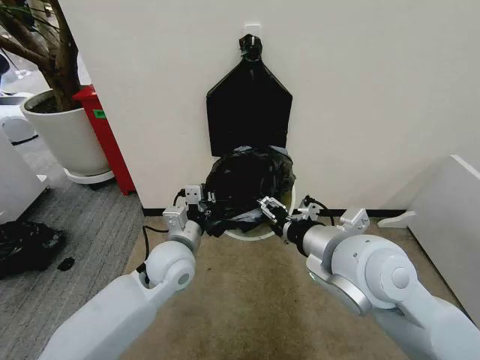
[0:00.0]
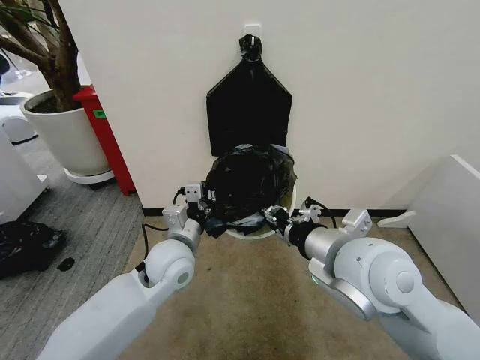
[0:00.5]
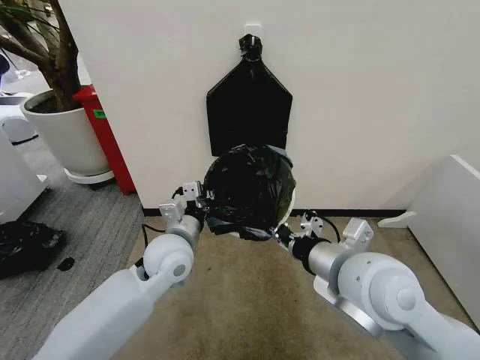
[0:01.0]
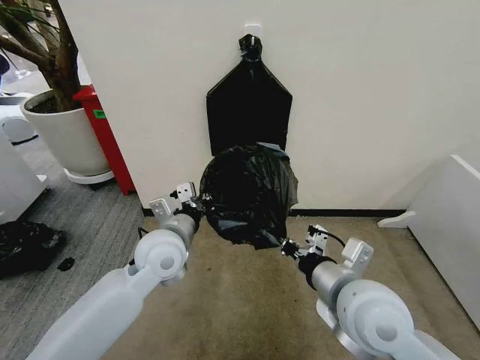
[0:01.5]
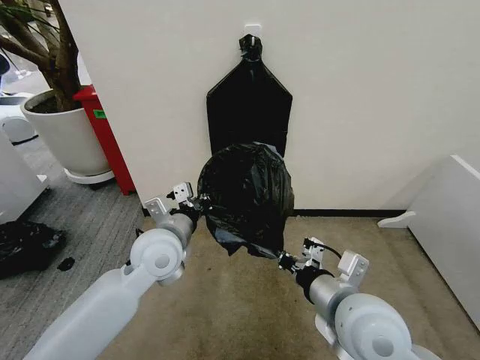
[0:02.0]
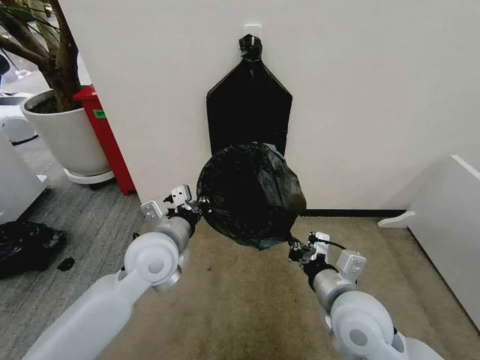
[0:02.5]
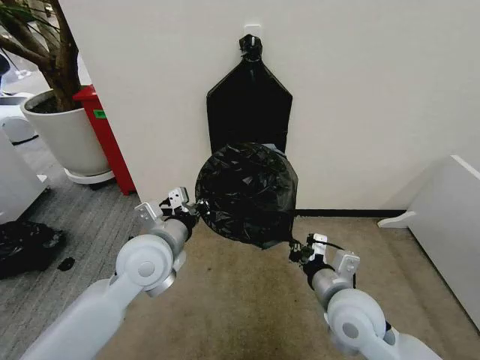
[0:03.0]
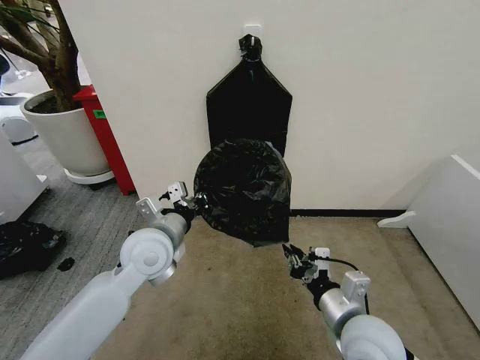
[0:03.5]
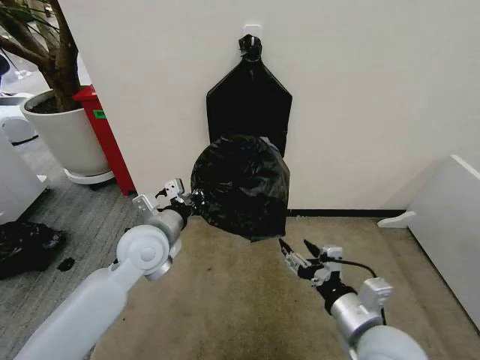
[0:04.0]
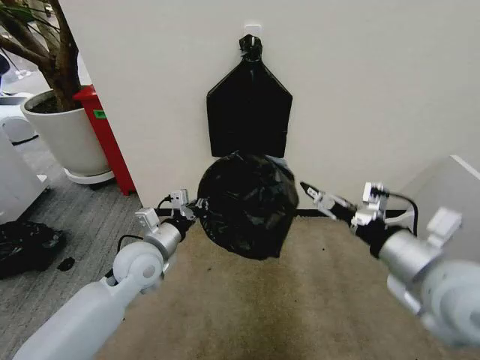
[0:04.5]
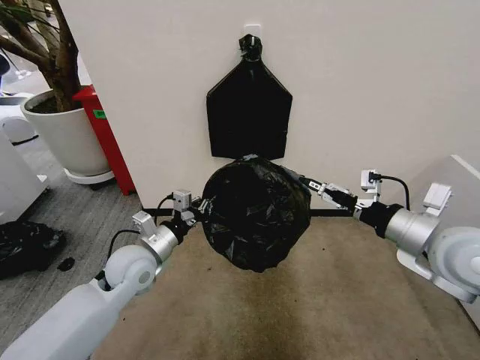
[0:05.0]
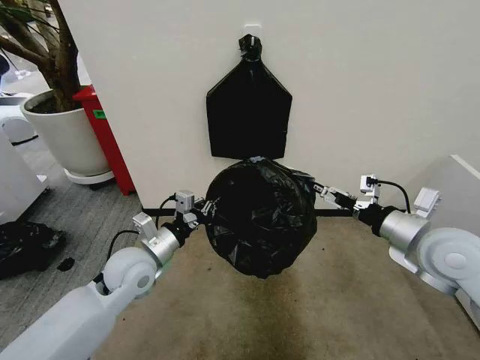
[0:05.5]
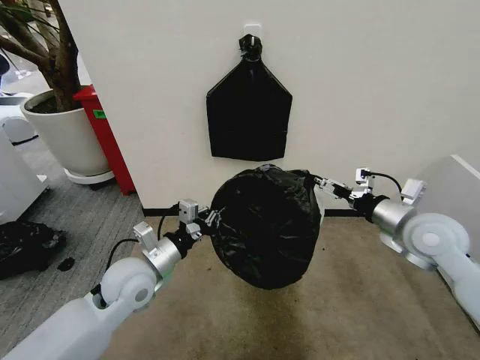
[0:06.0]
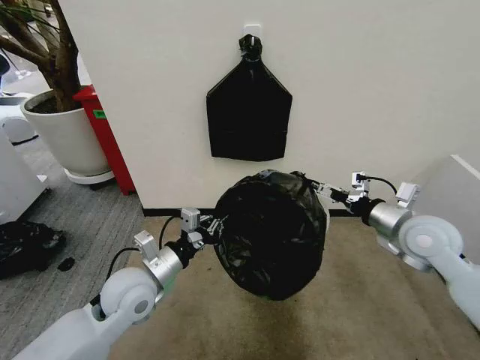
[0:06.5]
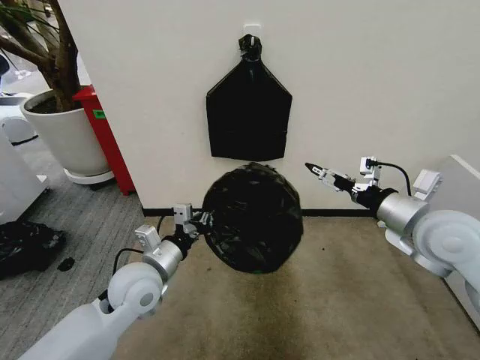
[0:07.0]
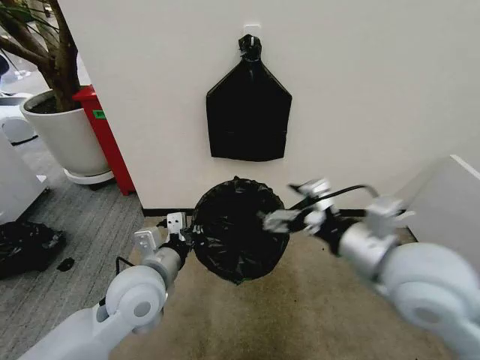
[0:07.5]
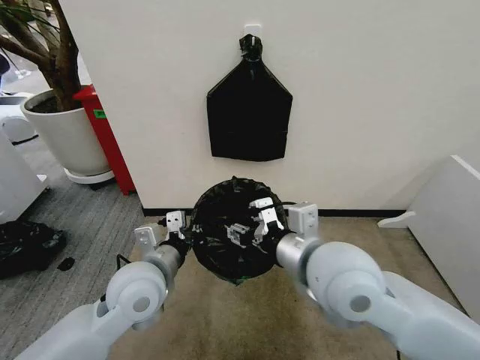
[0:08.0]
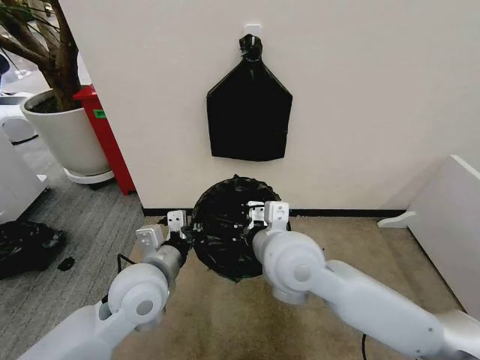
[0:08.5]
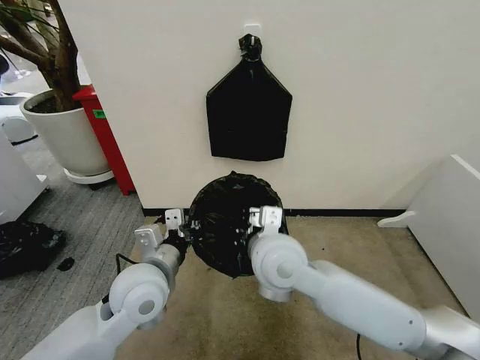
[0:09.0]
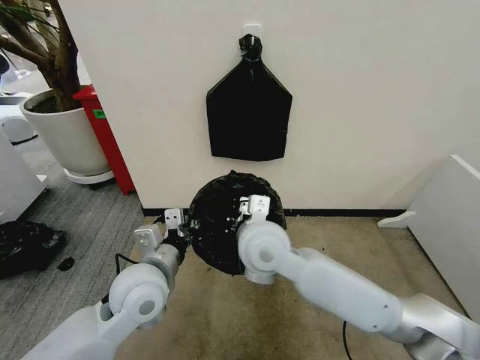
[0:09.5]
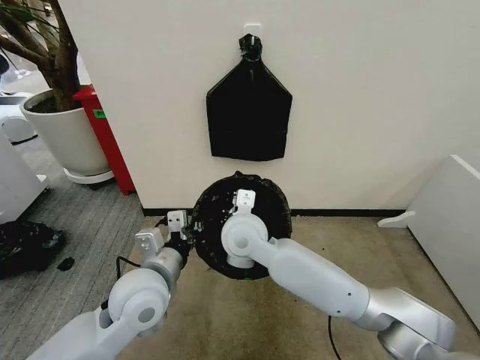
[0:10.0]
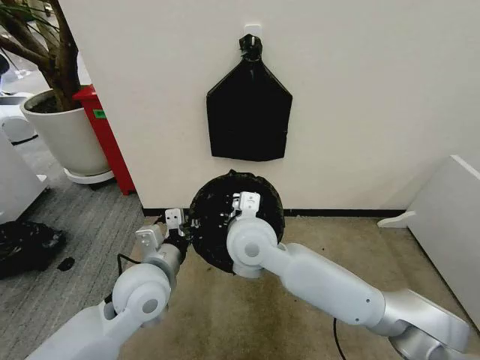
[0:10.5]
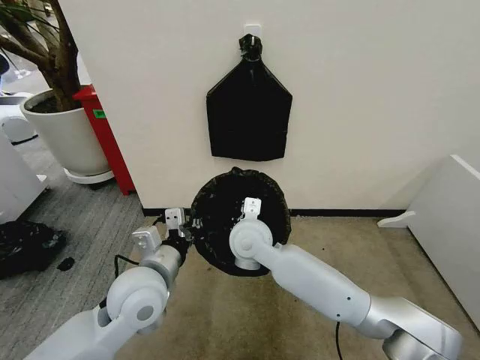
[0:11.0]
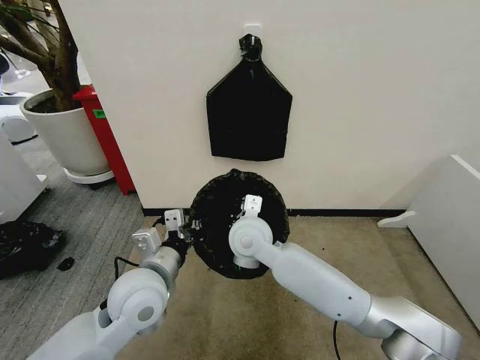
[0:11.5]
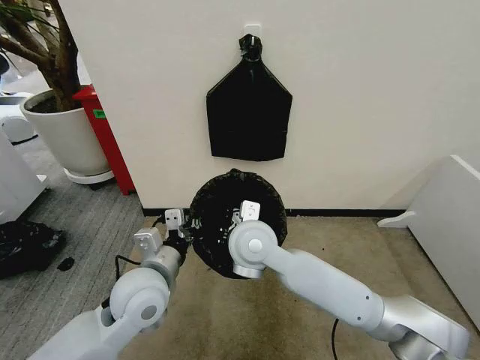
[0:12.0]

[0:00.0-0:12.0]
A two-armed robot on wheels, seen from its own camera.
Task of the whole recording: Place the garbage bag over the trash bin.
0:00.0 to 0:02.0: The right gripper moves downward and backward, about 10 cm, and closes.
0:02.0 to 0:04.0: The right gripper travels downward by about 5 cm, and opens up.
0:04.0 to 0:06.0: The left gripper changes place by roughly 5 cm. The right gripper moves forward and to the right, about 20 cm.
0:06.0 to 0:08.0: The right gripper shifts about 25 cm to the left and backward, and closes, while the left gripper shifts by roughly 5 cm.
0:08.0 to 0:10.0: The right gripper goes about 20 cm to the left, forward and downward, and closes up.
0:10.0 to 0:12.0: The grippers move only a little.

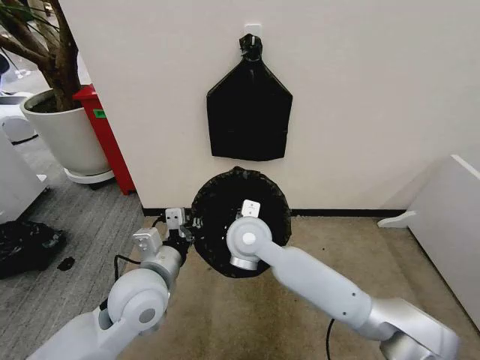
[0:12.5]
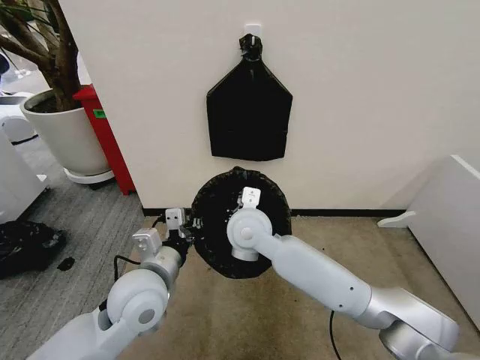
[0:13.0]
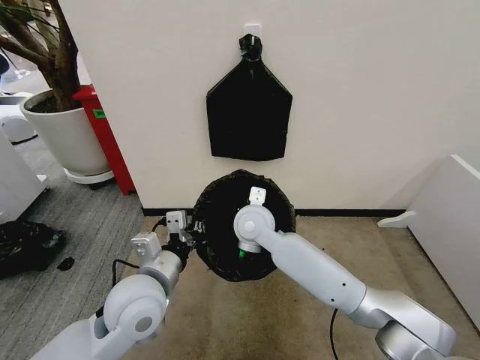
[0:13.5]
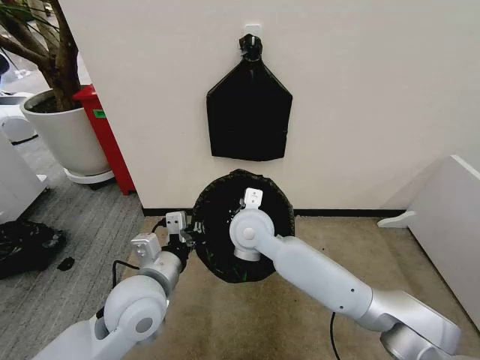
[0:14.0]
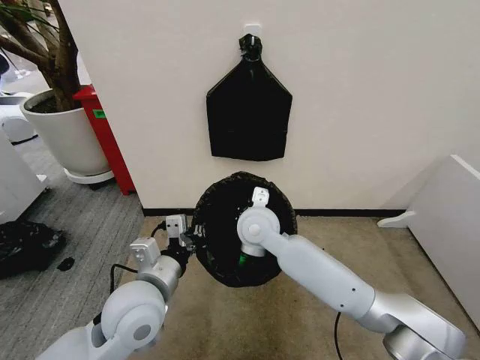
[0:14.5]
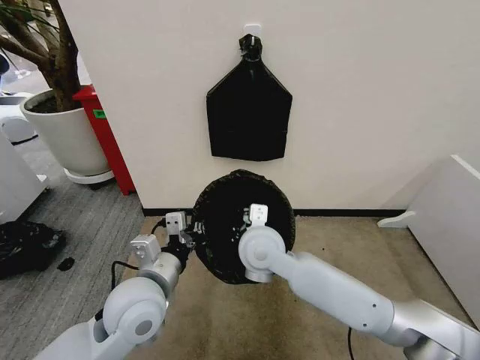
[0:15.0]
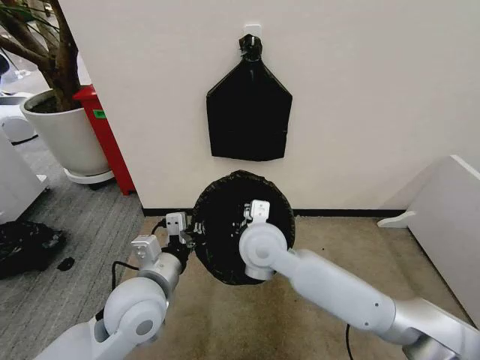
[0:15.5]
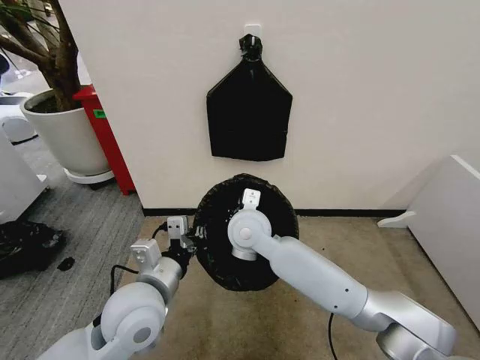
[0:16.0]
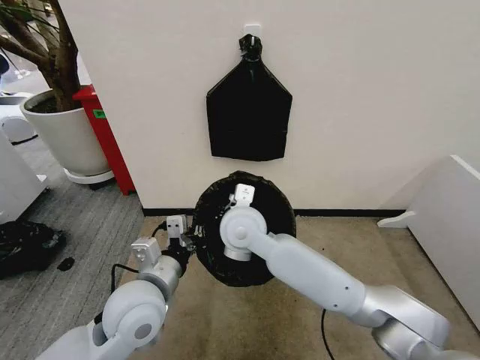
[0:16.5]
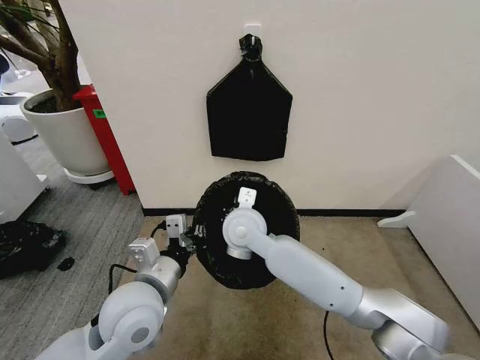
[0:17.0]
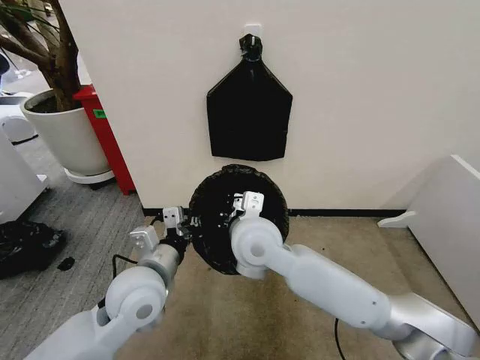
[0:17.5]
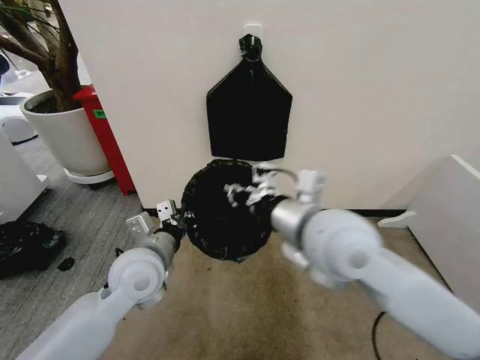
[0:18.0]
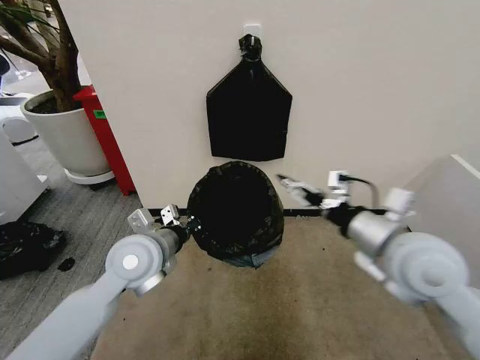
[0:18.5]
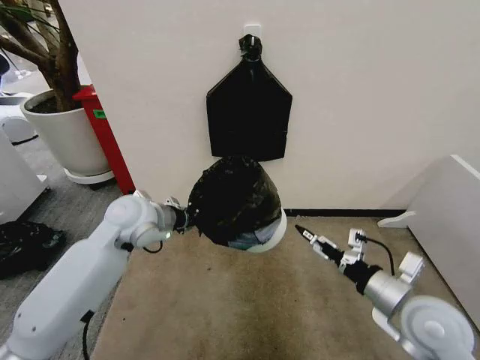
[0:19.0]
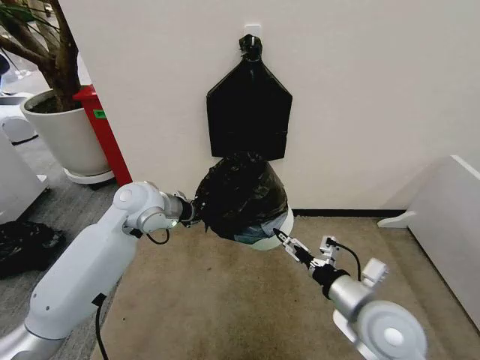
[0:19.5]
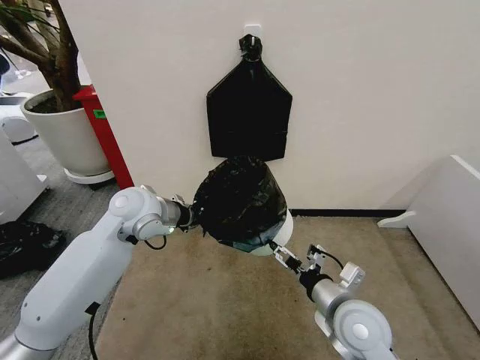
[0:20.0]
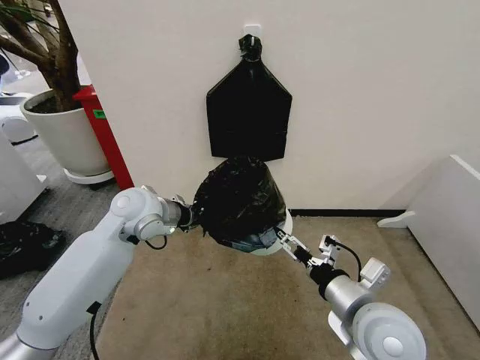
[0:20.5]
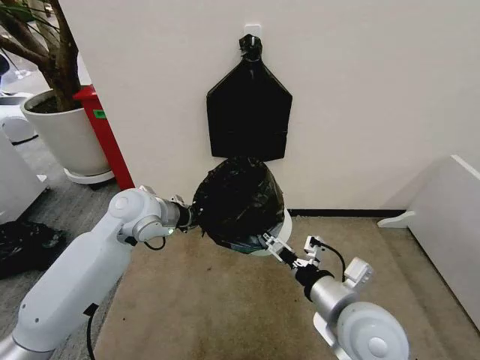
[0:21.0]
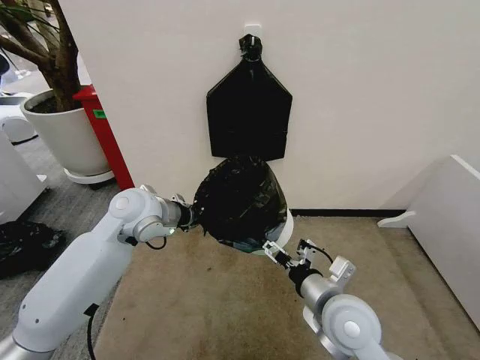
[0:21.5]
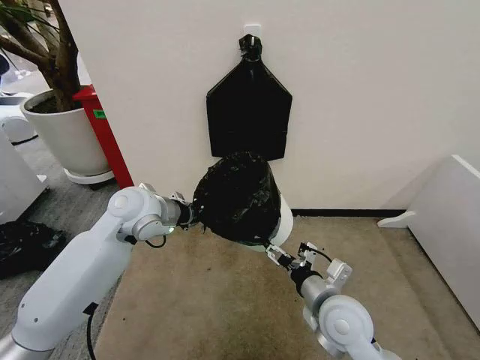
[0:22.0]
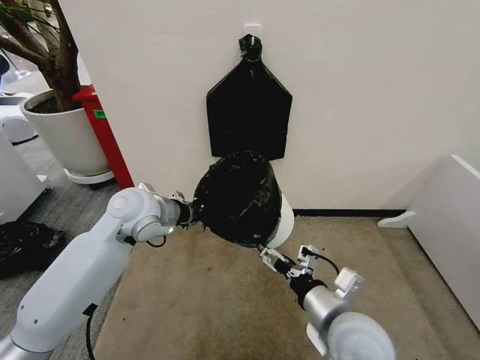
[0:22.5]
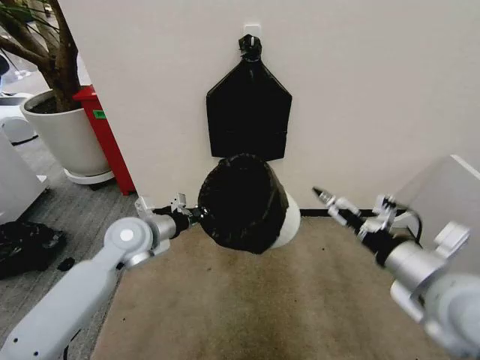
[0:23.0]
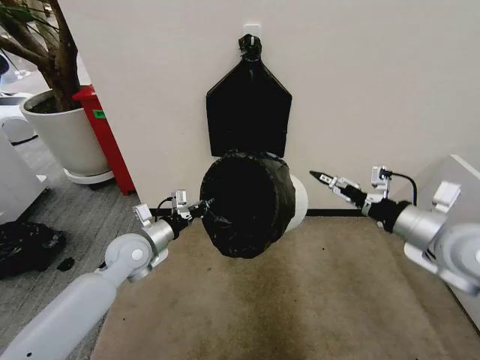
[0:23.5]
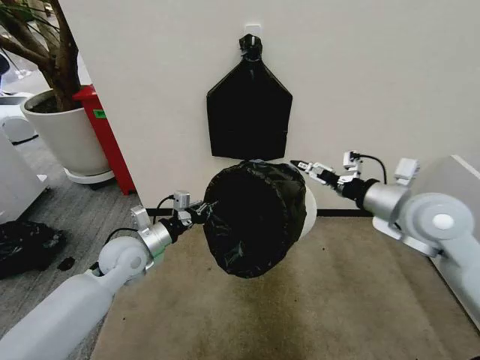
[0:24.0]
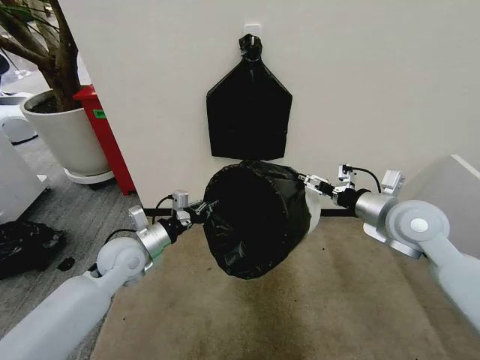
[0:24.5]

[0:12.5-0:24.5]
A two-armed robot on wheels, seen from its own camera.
Task of the whole recording: Place the garbage bag over the trash bin.
0:12.5 to 0:14.5: The grippers move only a little.
0:14.5 to 0:16.5: The right gripper shifts by approximately 5 cm.
0:16.5 to 0:18.5: The right gripper goes approximately 30 cm to the right, and opens up, while the left gripper is displaced forward by approximately 10 cm.
0:18.5 to 0:20.5: The left gripper is displaced forward by some 10 cm. The right gripper goes approximately 15 cm downward, backward and to the left, and opens.
0:22.5 to 0:24.5: The left gripper shifts about 10 cm downward. Meanwhile the right gripper goes some 25 cm forward, to the right and upward.

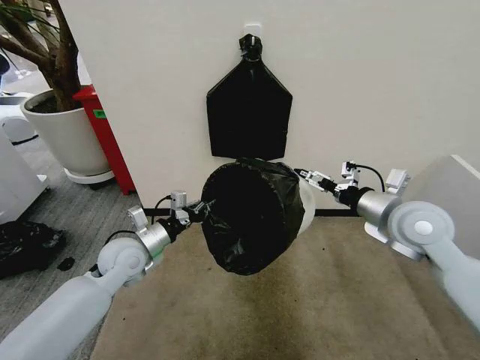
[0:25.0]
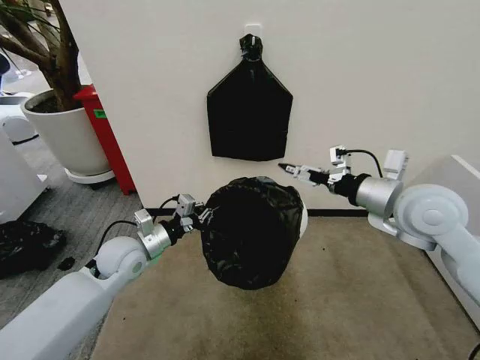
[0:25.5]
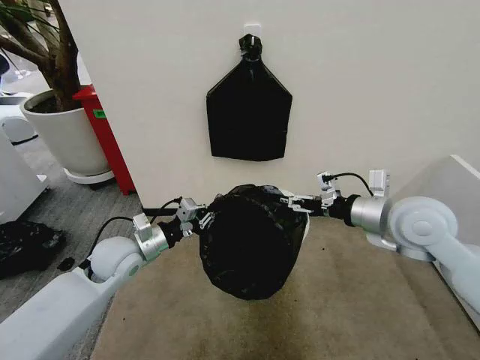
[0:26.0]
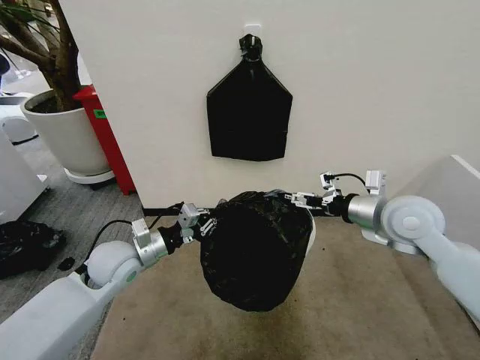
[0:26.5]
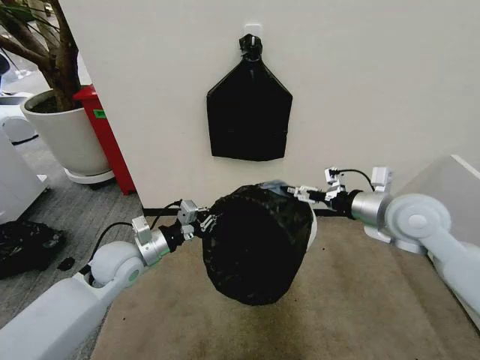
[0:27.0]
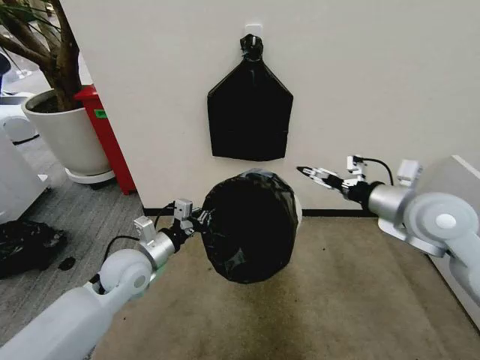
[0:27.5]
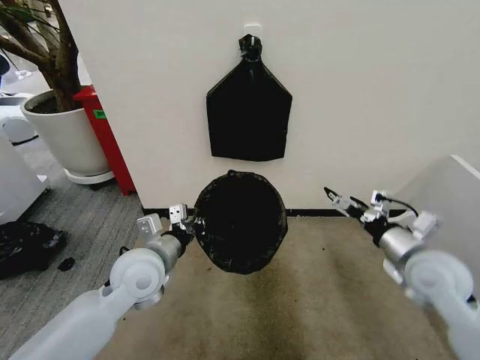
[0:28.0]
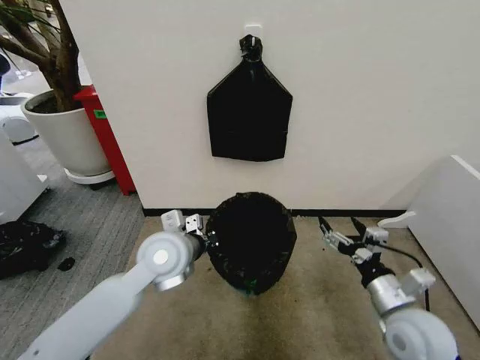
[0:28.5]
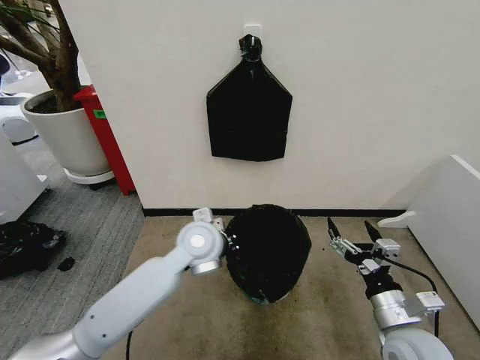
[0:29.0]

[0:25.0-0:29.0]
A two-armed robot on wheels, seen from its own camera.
Task of the whole recording: Place the garbage bag over the trash bin.
0:27.0 to 0:29.0: The left gripper heads to the right, covering some 15 cm. The right gripper goes roughly 25 cm backward and downward.
